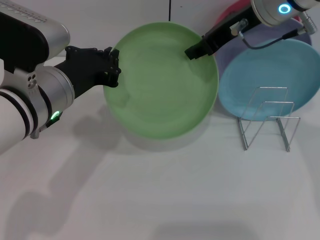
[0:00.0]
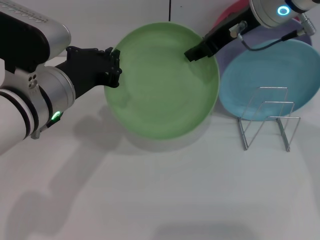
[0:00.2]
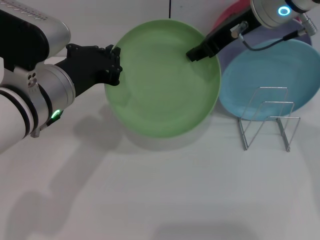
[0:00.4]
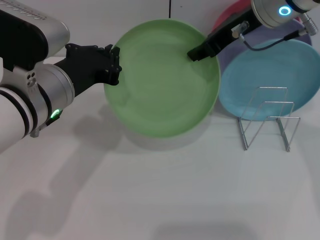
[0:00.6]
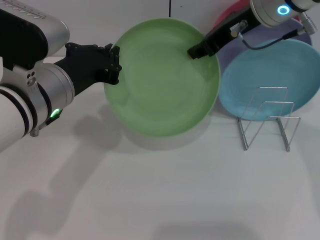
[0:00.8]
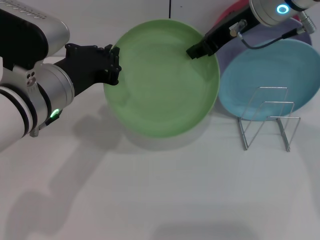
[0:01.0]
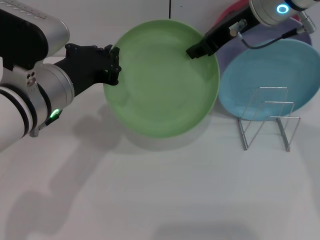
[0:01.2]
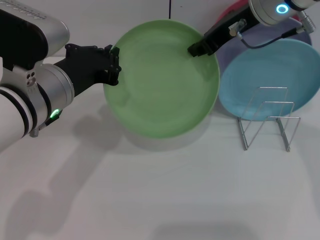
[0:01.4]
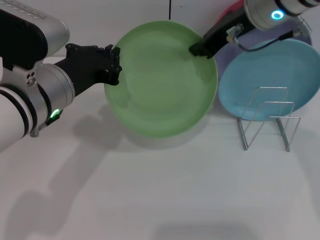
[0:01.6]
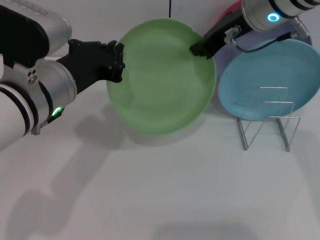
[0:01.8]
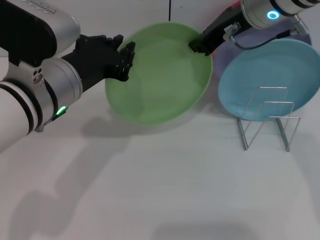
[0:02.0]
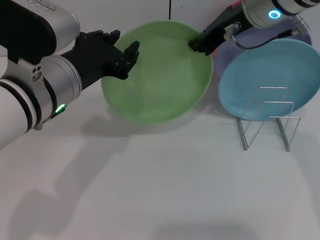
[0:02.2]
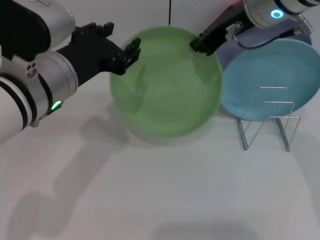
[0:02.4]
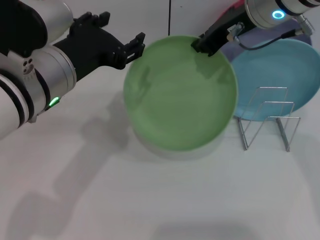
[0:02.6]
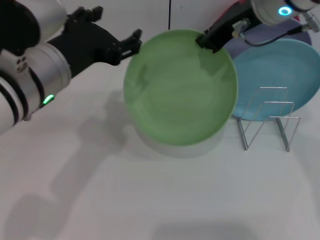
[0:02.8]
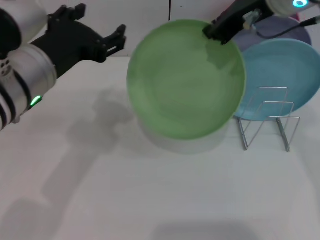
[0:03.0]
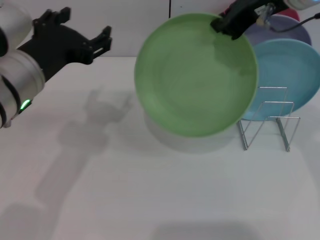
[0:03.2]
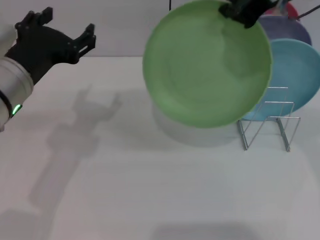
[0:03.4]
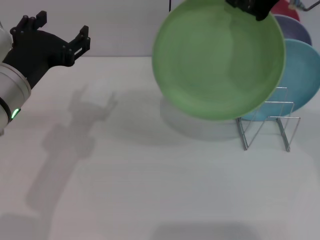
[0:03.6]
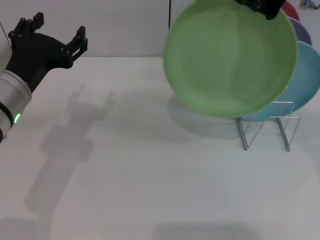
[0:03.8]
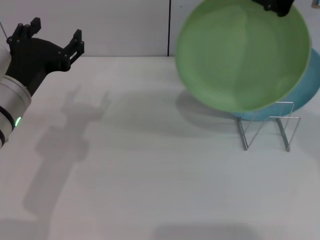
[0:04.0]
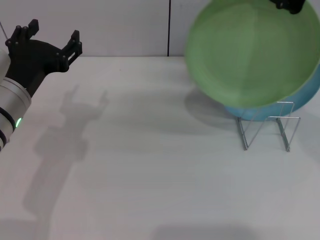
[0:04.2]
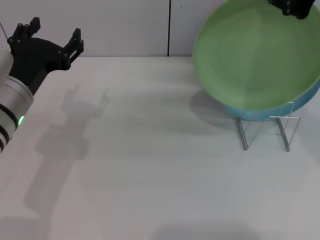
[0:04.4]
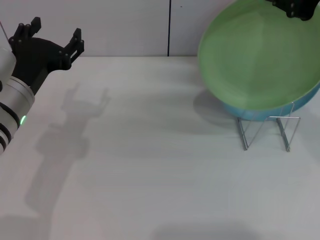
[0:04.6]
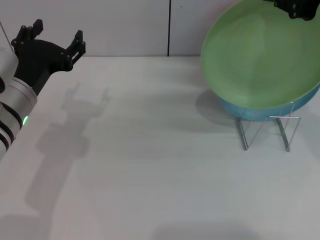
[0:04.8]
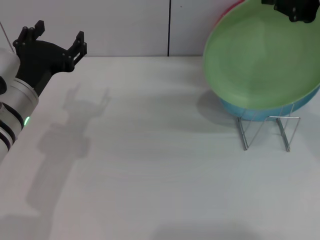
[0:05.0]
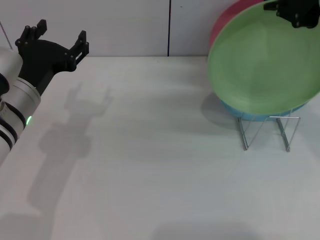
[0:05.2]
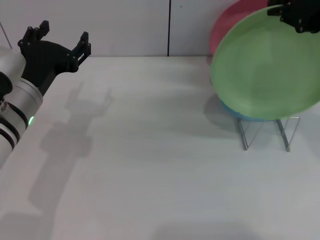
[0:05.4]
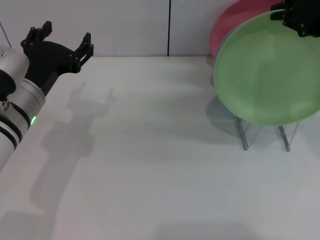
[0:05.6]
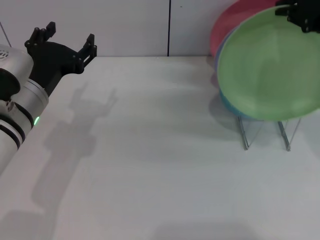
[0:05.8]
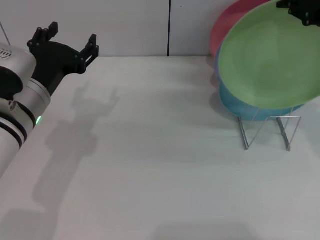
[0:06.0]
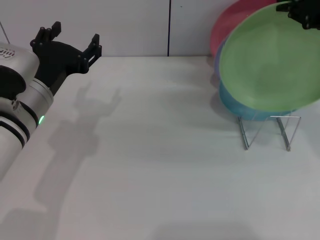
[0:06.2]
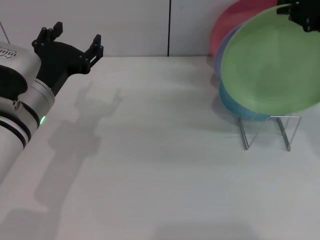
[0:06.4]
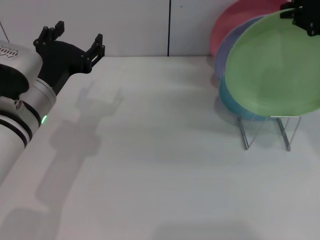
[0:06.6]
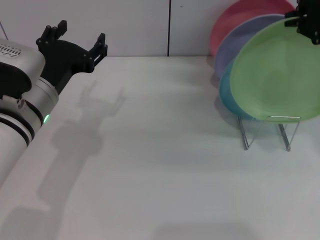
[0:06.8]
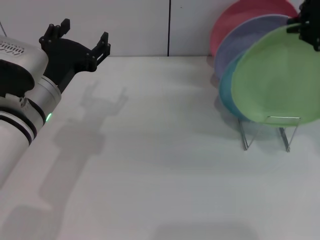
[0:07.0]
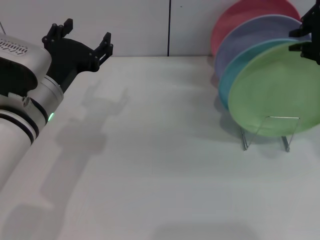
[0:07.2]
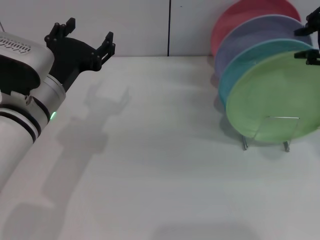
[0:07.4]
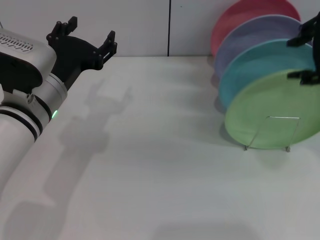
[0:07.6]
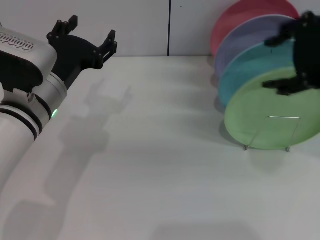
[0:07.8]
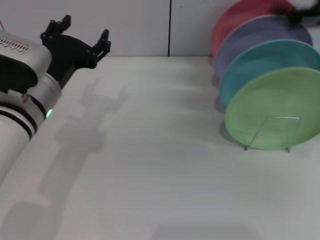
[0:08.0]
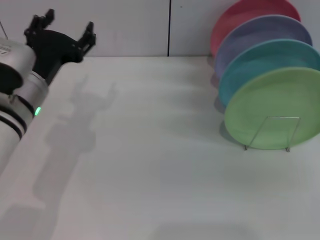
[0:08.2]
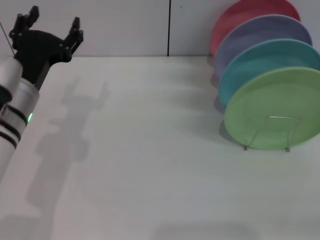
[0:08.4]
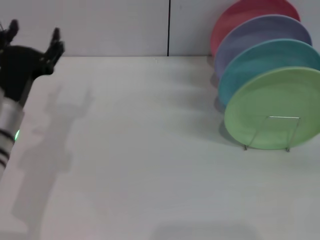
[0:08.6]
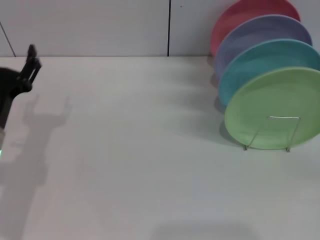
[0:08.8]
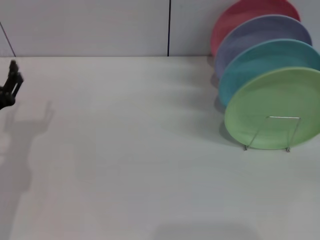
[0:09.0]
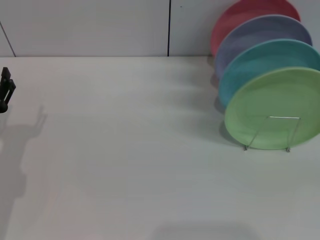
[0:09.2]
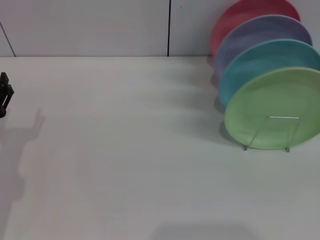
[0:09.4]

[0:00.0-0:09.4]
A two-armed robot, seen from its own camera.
Task of the whole recording: Grip the plate with one hand, pass it to the other, then set it on the shelf.
Step, 0:00.0 to 0:02.6: Pass the plate from the left gripper to the right gripper.
Step, 0:03.0 to 0:07.6: Place the plate on the shelf with the right gripper.
0:00.0 to 0:01.6: The grippers stay close to where they were, moving slightly.
0:01.6 to 0:03.2: The right gripper moves some 5 cm. Meanwhile the left gripper opens its fingers.
0:03.2 to 0:04.8: The left gripper moves downward, roughly 5 cm; the right gripper ends up roughly 5 cm from where it was.
0:04.8 to 0:06.2: There are only small adjustments of the grippers.
0:06.2 to 0:07.8: The right gripper moves backward, roughly 5 cm, and opens up.
0:07.8 to 0:09.4: The left gripper travels to the left, downward and backward by roughly 15 cm; the right gripper is displaced downward, to the right and backward by about 35 cm.

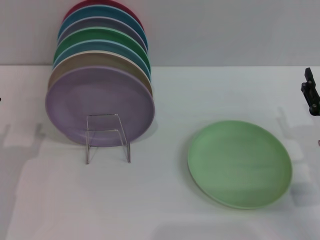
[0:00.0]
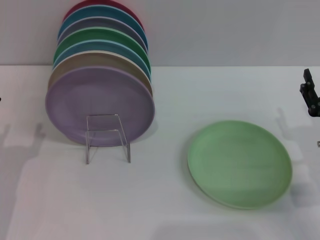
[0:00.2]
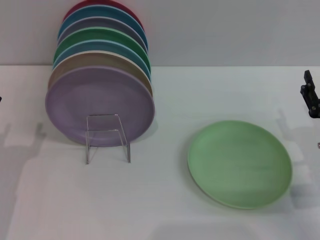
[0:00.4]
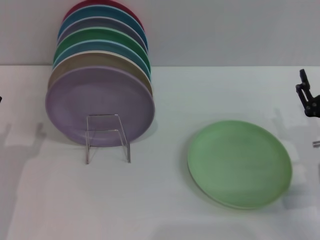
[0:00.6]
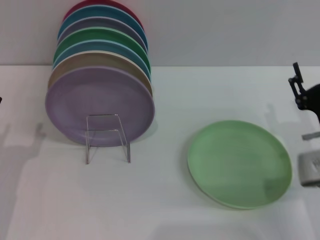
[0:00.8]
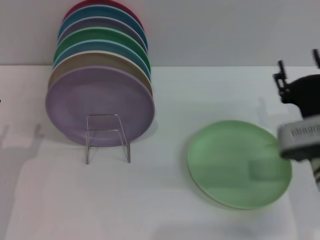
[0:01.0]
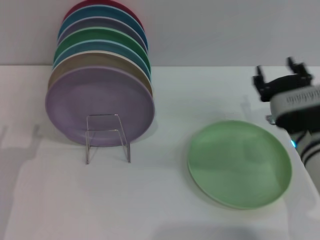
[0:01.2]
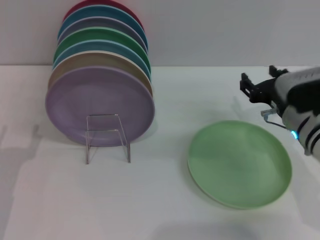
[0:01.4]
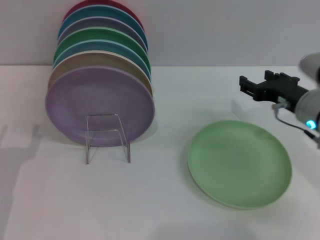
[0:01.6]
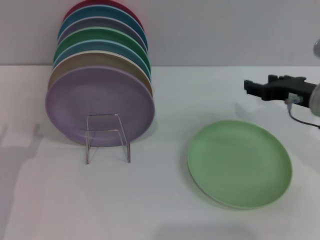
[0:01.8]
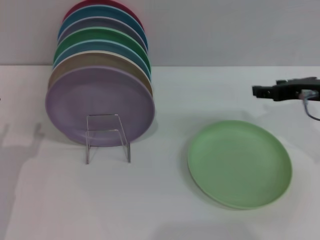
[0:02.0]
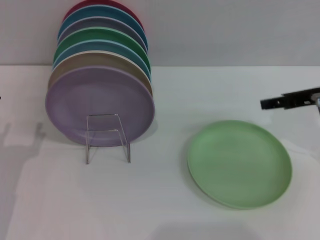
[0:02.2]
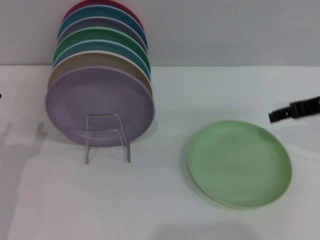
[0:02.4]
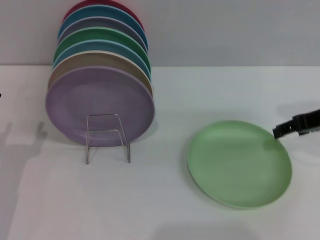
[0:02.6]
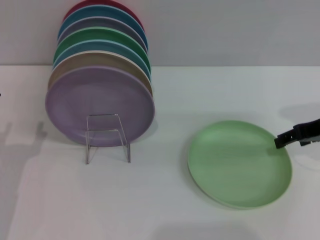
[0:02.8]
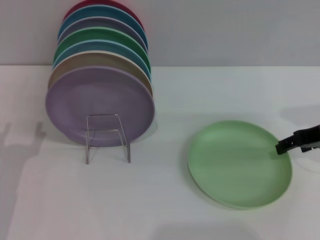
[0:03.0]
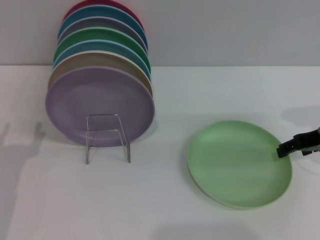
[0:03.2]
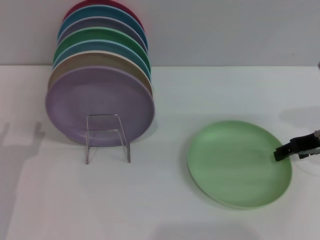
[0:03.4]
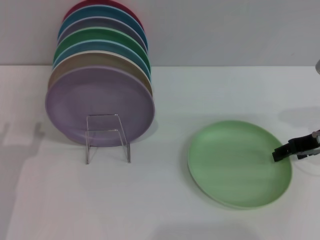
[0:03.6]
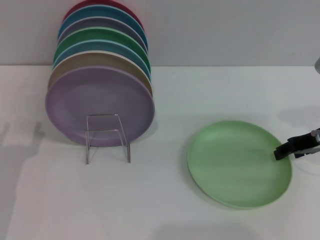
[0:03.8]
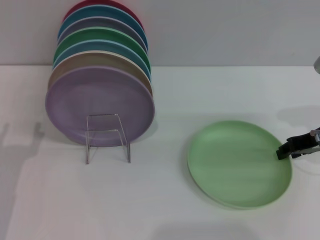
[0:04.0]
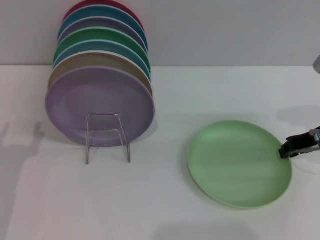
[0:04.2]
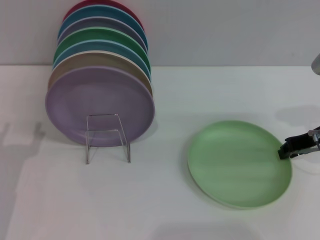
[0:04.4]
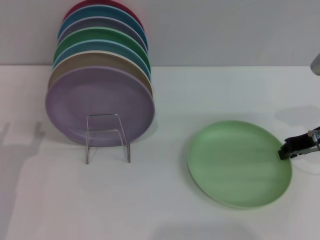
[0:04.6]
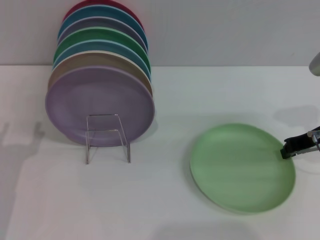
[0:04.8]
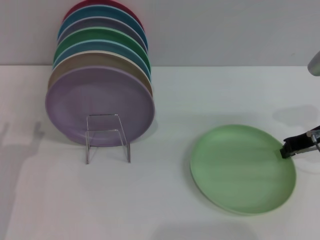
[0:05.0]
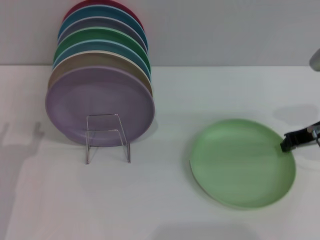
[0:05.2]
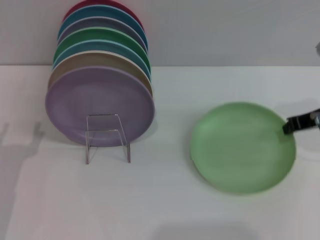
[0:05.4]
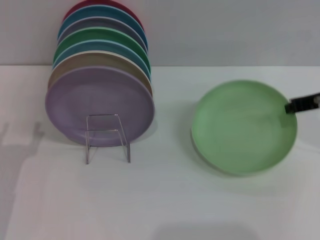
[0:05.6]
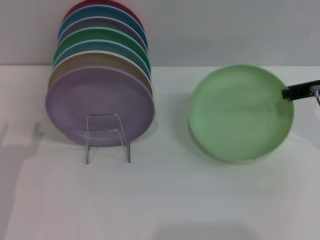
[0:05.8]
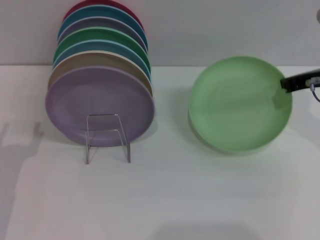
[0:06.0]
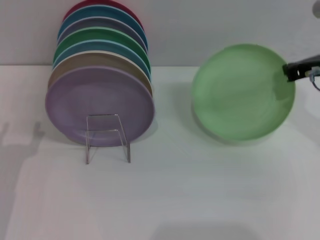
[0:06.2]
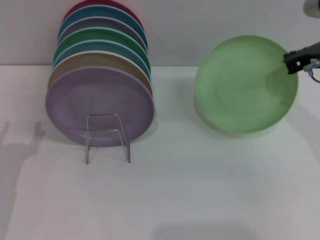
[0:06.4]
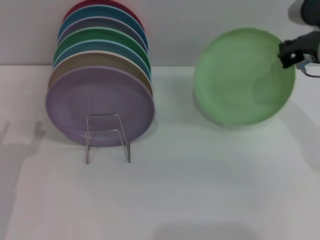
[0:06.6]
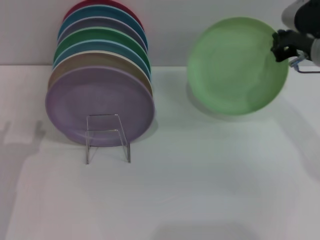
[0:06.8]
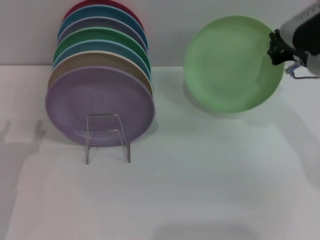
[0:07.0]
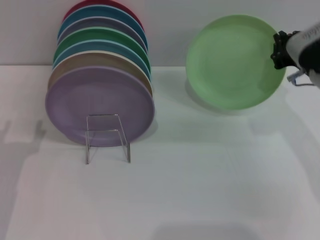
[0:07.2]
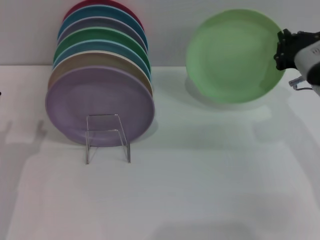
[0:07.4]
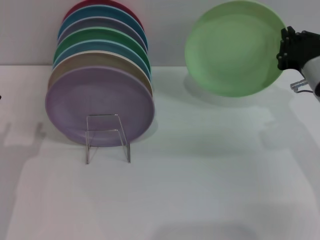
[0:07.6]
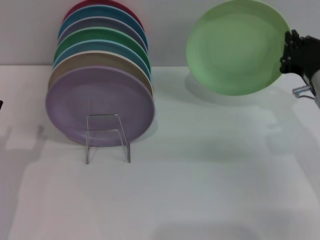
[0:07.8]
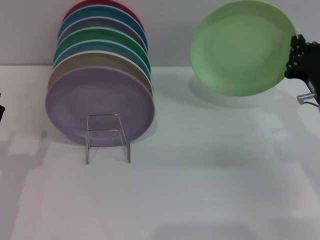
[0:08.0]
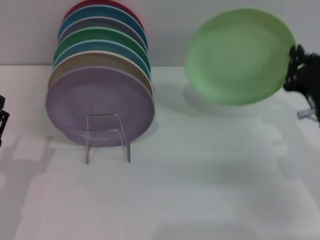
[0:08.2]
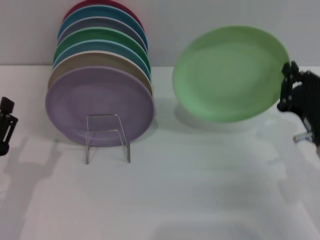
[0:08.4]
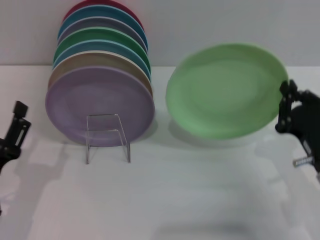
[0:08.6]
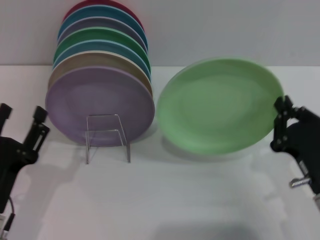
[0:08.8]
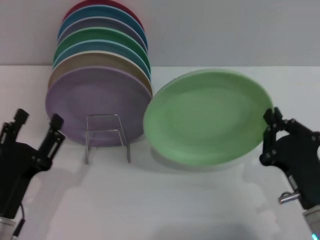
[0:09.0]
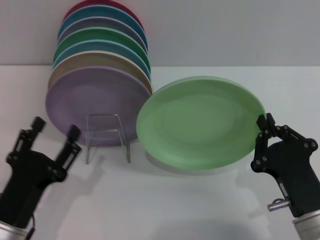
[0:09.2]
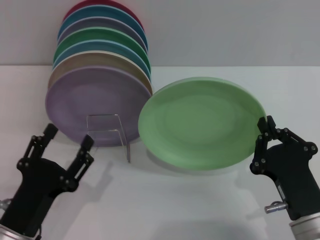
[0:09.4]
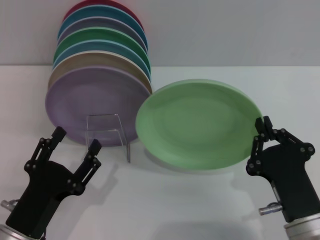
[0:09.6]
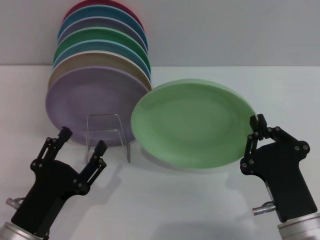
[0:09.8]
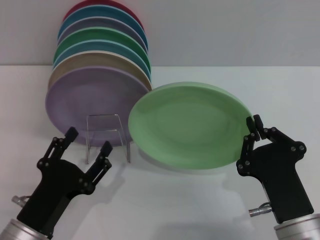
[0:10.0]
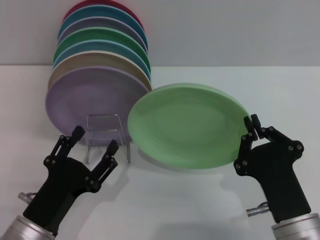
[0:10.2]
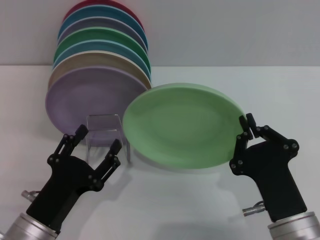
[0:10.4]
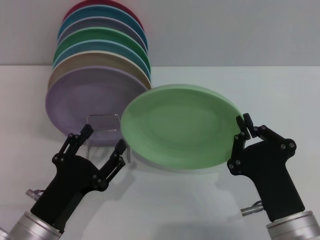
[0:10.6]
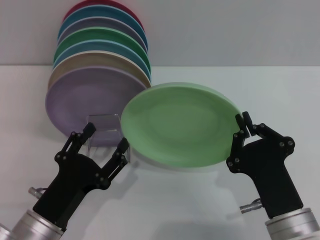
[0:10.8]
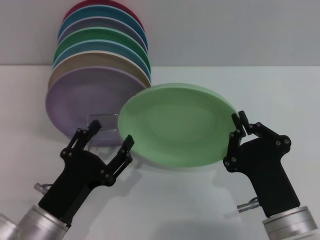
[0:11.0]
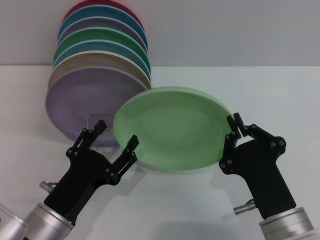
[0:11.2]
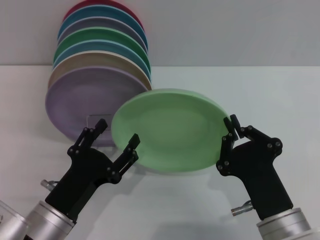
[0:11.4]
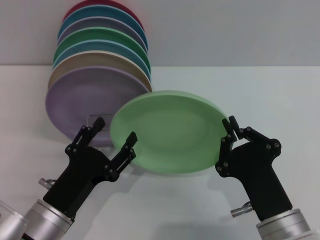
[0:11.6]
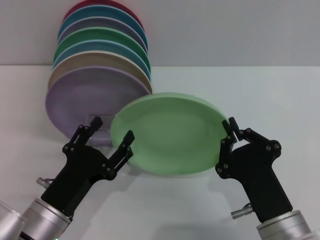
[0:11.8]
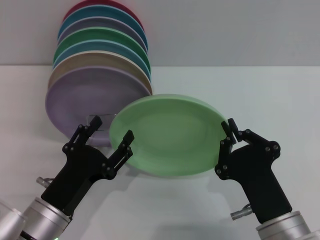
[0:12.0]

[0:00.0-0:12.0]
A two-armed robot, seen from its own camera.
Task of the whole recording: Grip the plate with one hand, pass it to the other, then set it on the shelf.
Step, 0:00.0 to 0:05.6: Pick up the plate with the right gripper.
0:00.0 to 0:01.6: The right gripper shifts about 10 cm forward and upward.
0:01.6 to 0:03.0: The right gripper moves to the right, some 5 cm.
0:03.0 to 0:04.4: The right gripper closes.
0:04.4 to 0:06.0: The right gripper shifts approximately 5 cm upward.
0:06.0 to 0:07.6: The right gripper travels downward by roughly 5 cm.
0:07.6 to 0:09.0: The right gripper shifts roughly 20 cm backward and downward. The left gripper changes place by roughly 5 cm.
0:09.0 to 0:10.4: The right gripper goes approximately 5 cm to the left.
0:10.4 to 0:12.0: There are only small adjustments of the grippers.
